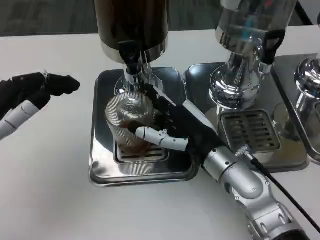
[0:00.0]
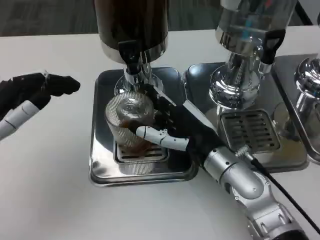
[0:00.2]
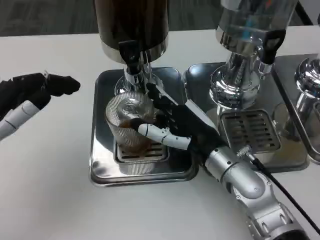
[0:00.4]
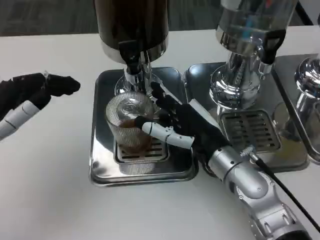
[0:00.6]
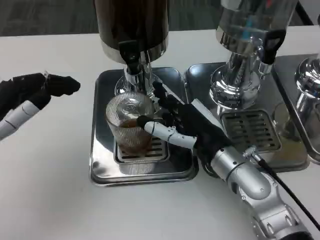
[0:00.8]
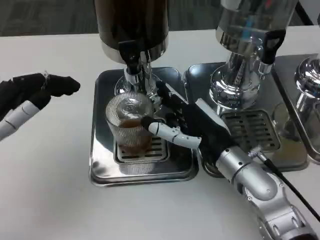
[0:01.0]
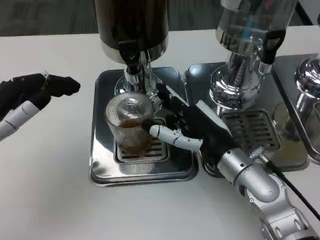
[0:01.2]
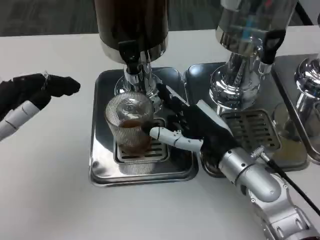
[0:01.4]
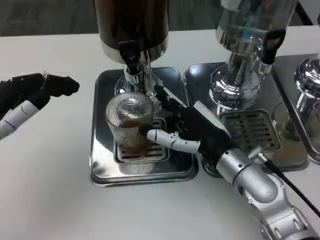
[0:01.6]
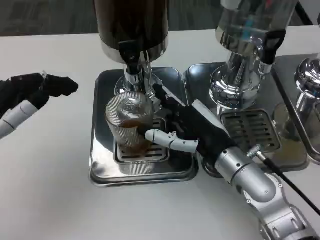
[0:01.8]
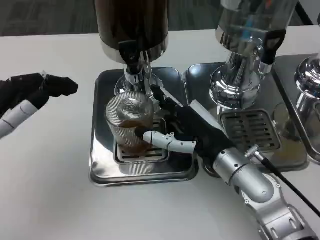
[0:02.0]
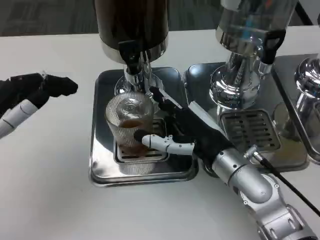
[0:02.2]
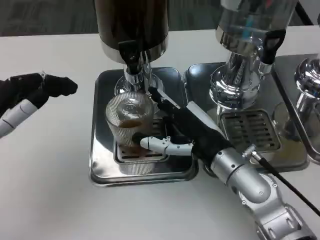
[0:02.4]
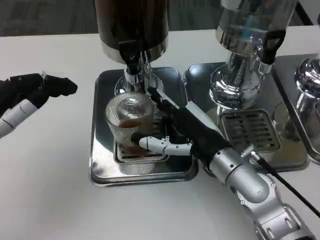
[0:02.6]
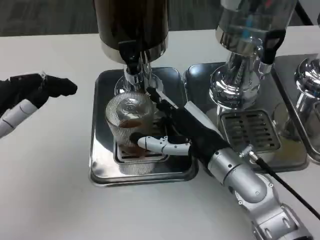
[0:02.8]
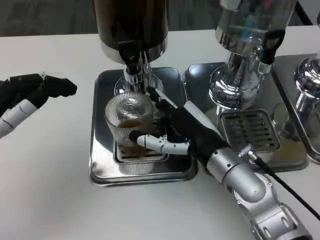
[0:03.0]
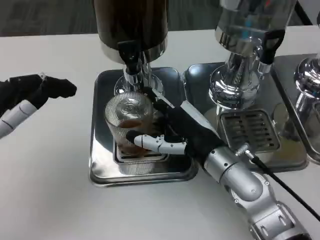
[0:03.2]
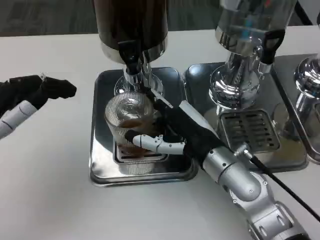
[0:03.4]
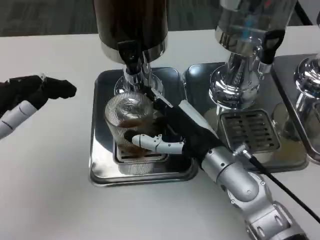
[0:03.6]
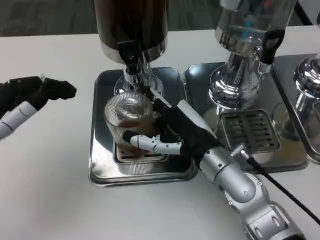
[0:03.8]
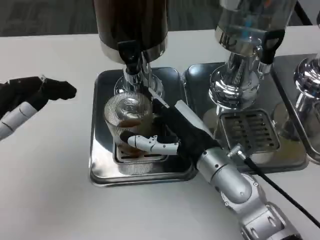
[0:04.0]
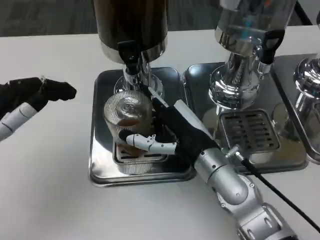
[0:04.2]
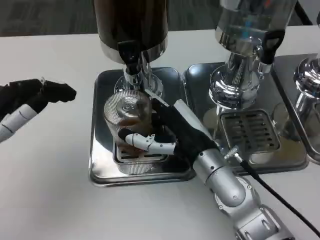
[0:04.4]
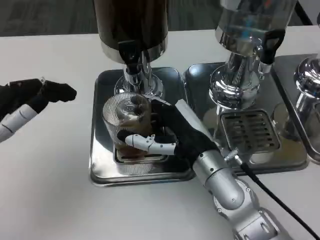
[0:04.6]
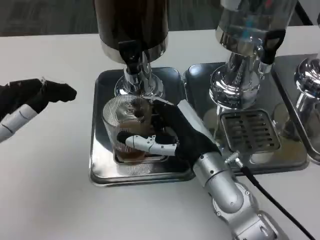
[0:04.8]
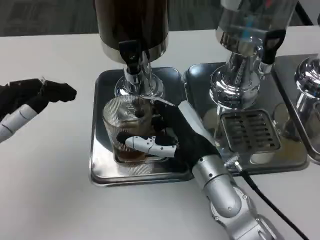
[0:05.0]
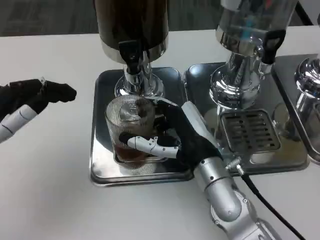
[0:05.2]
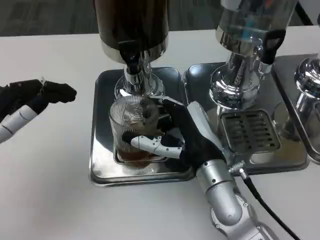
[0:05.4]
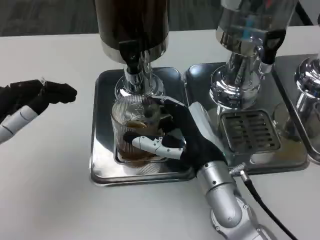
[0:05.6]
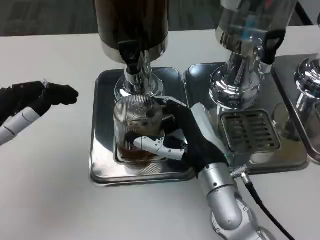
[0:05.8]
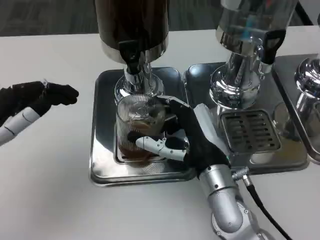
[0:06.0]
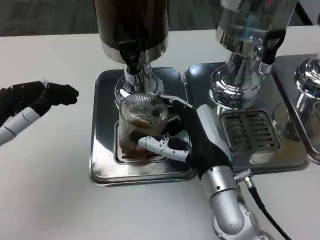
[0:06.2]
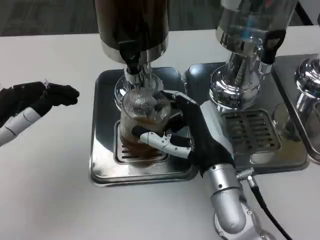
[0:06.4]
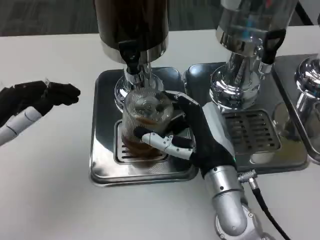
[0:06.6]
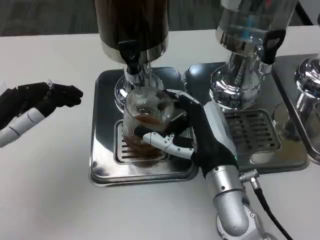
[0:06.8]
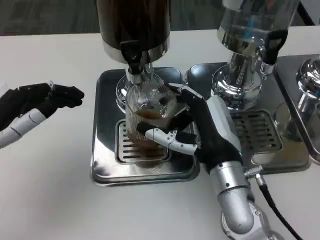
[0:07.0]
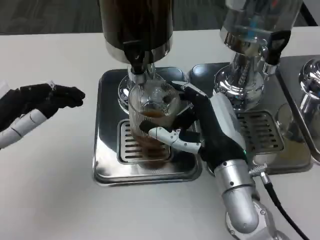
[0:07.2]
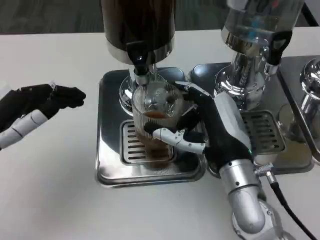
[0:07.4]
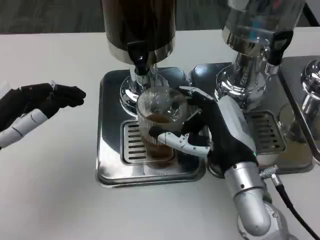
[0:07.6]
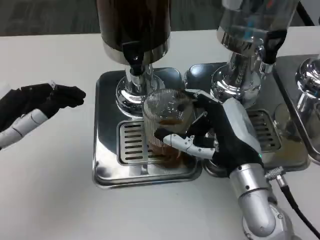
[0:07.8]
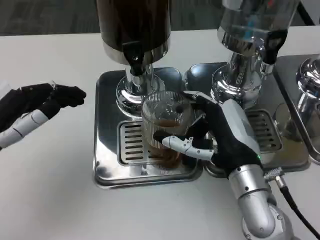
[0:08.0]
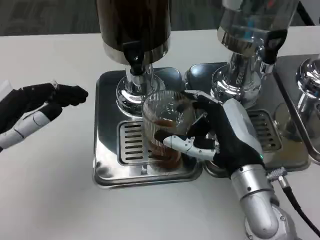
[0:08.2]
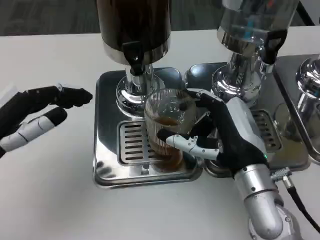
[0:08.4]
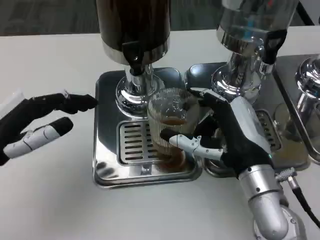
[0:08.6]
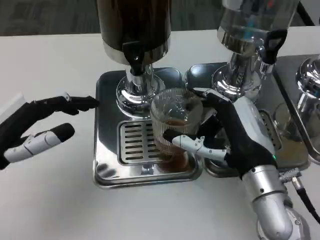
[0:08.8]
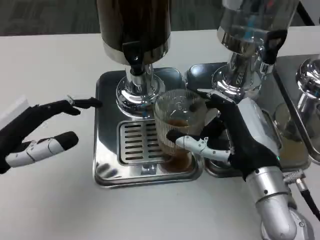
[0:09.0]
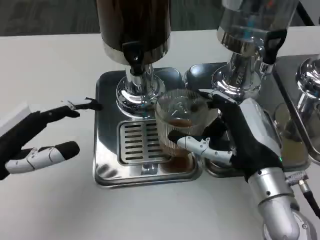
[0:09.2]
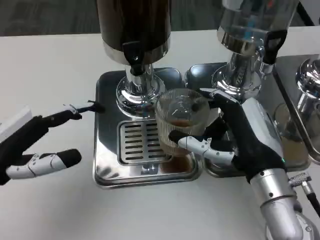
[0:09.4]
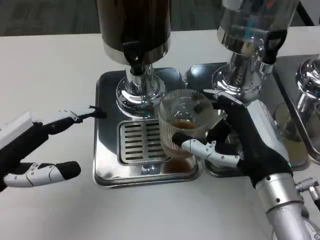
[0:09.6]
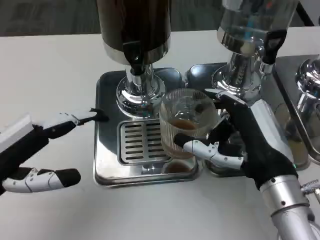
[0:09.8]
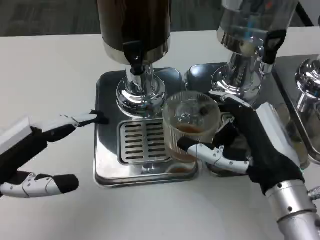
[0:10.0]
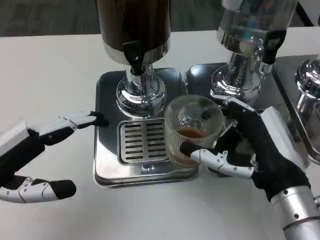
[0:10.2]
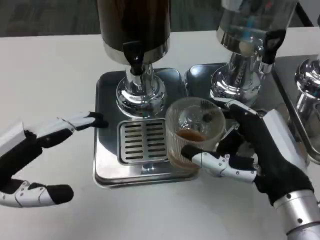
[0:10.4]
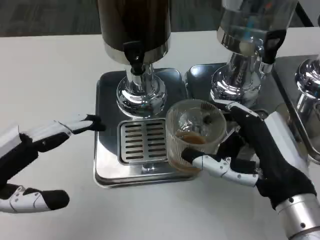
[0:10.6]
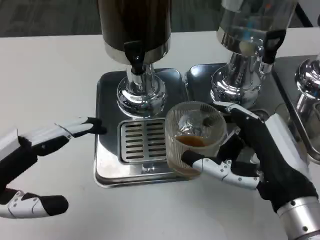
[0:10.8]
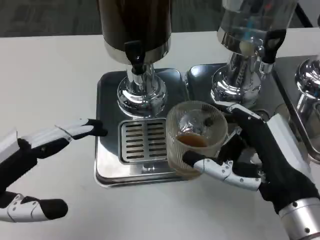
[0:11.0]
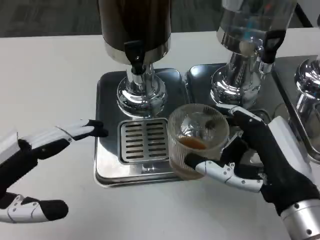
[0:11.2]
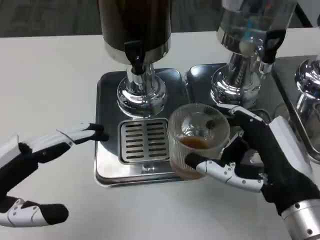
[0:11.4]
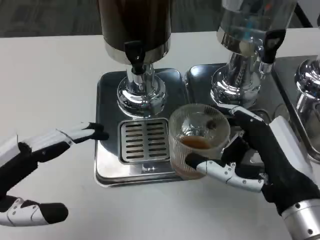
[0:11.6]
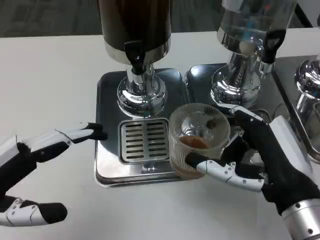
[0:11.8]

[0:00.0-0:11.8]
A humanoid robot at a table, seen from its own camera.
Task of the whole recording: Grasp the cup under the faucet to collect the drink, then remove the cup.
0:00.0 to 0:04.4: The hands stay close to where they were, moving slightly.
0:04.4 to 0:06.0: There are only small adjustments of the hands.
0:08.8 to 0:10.4: The right hand shifts about 5 cm backward.
0:10.4 to 0:11.8: The hands stay close to where they were, moving slightly.

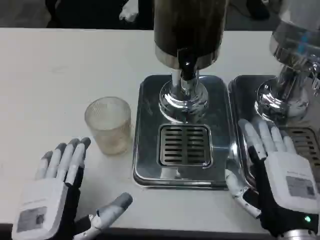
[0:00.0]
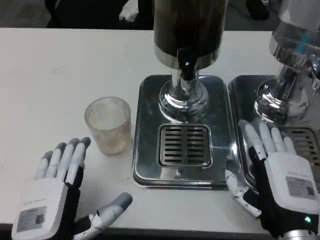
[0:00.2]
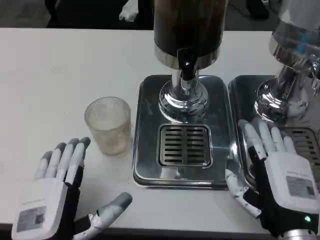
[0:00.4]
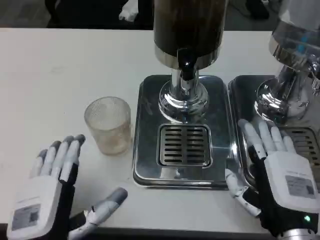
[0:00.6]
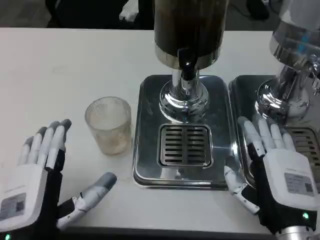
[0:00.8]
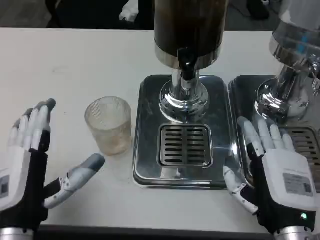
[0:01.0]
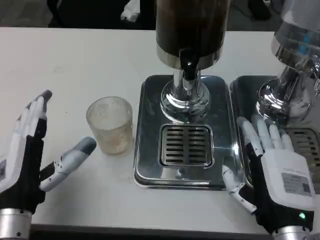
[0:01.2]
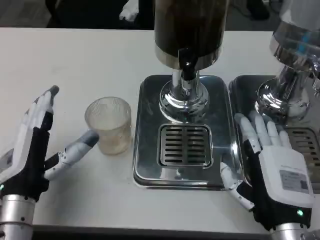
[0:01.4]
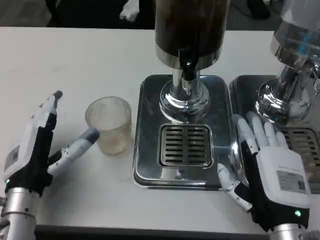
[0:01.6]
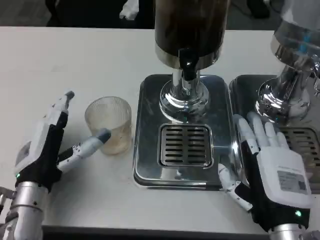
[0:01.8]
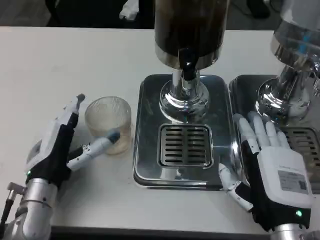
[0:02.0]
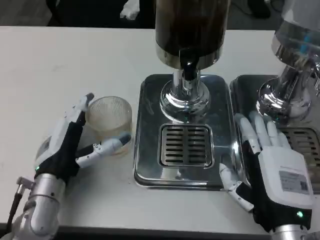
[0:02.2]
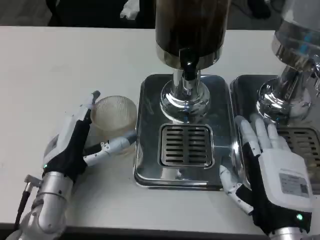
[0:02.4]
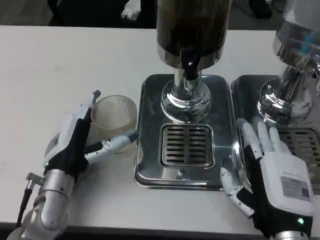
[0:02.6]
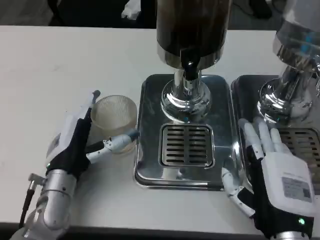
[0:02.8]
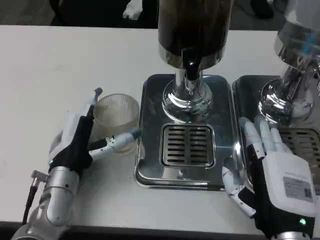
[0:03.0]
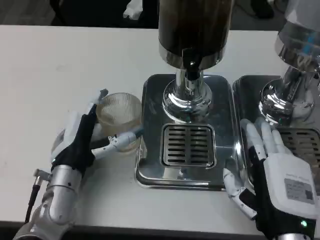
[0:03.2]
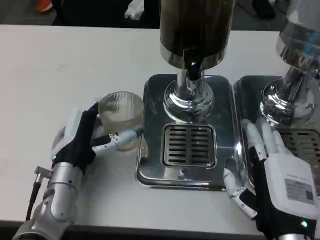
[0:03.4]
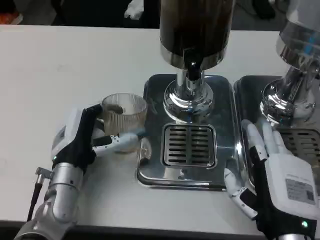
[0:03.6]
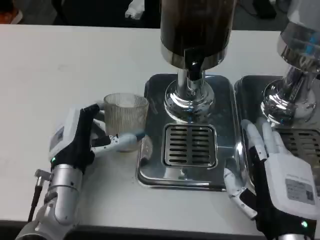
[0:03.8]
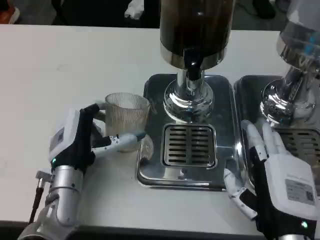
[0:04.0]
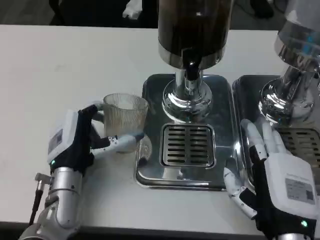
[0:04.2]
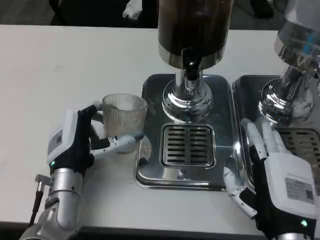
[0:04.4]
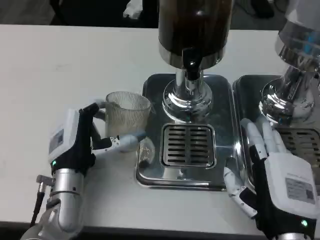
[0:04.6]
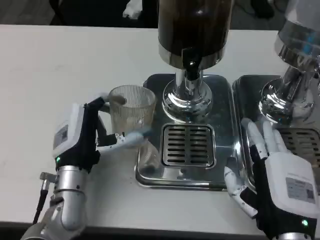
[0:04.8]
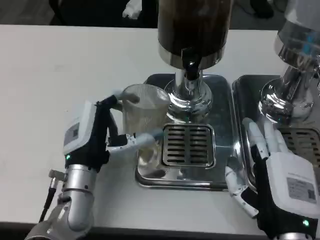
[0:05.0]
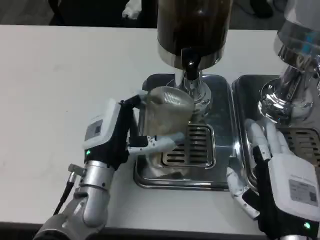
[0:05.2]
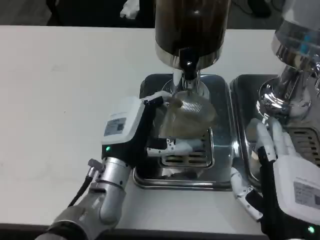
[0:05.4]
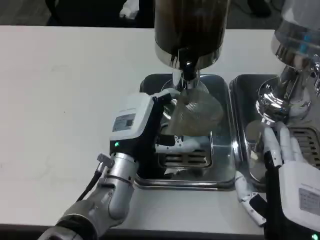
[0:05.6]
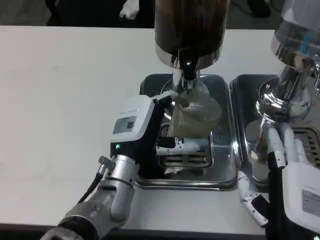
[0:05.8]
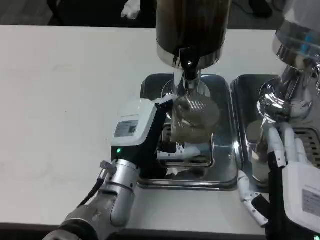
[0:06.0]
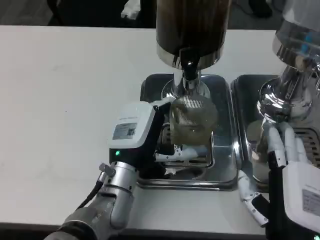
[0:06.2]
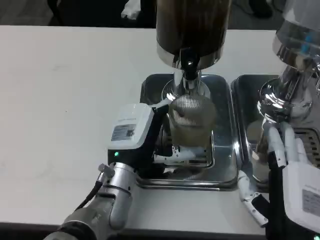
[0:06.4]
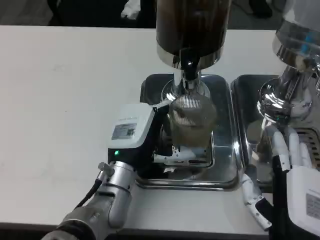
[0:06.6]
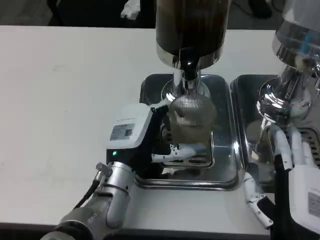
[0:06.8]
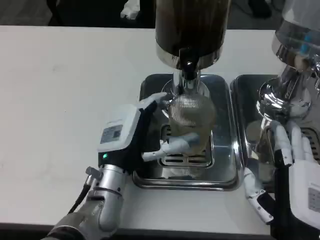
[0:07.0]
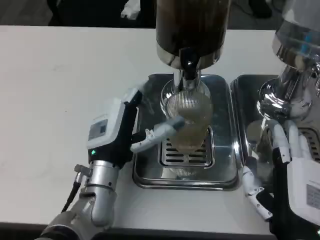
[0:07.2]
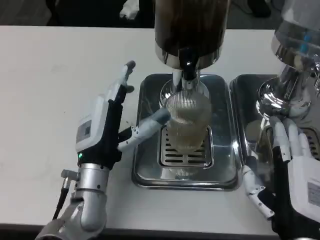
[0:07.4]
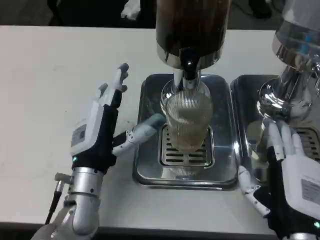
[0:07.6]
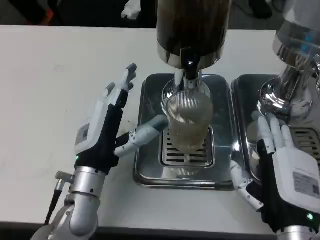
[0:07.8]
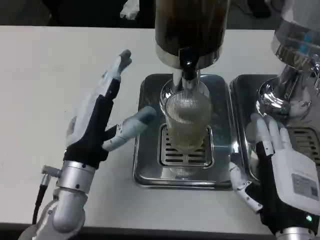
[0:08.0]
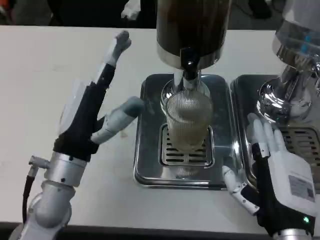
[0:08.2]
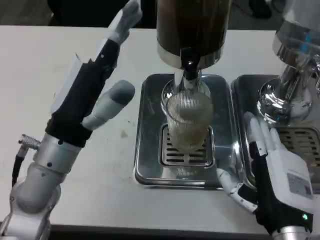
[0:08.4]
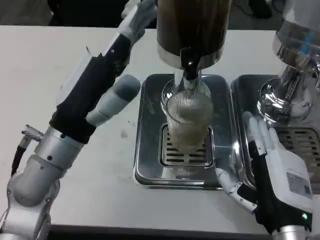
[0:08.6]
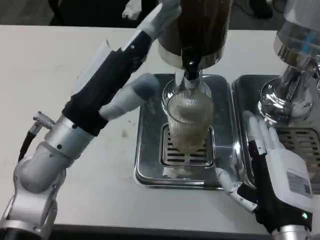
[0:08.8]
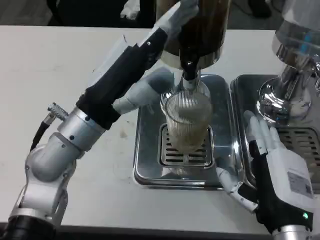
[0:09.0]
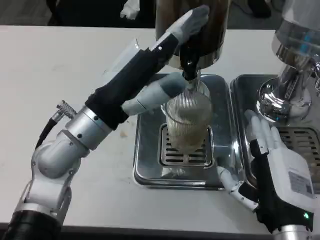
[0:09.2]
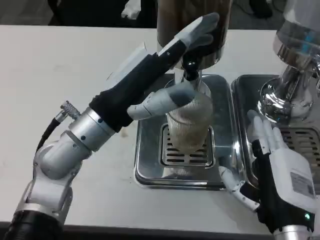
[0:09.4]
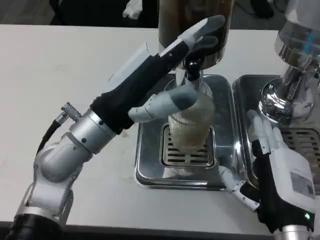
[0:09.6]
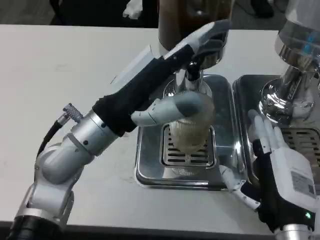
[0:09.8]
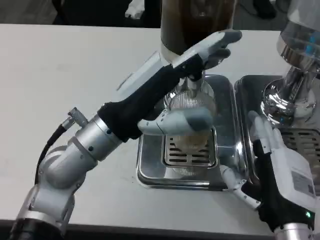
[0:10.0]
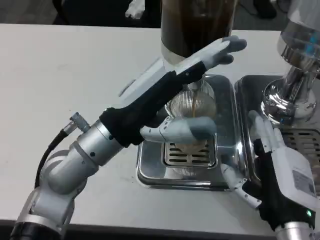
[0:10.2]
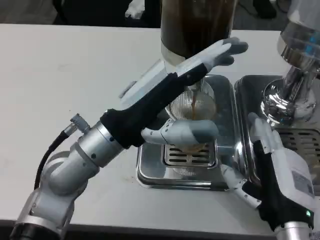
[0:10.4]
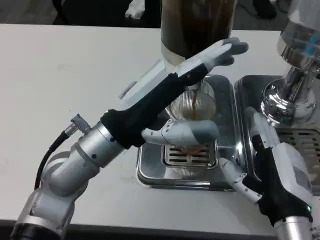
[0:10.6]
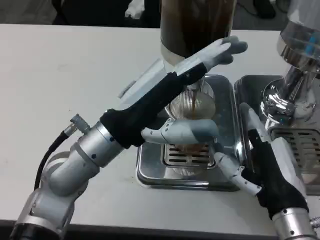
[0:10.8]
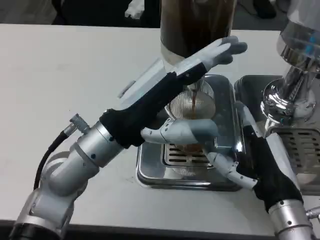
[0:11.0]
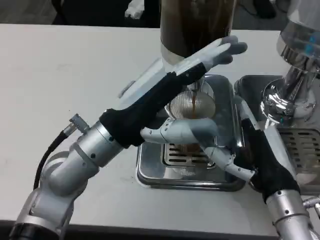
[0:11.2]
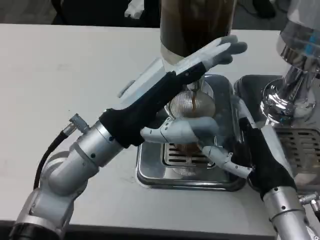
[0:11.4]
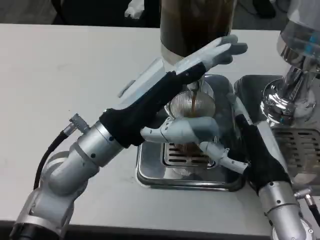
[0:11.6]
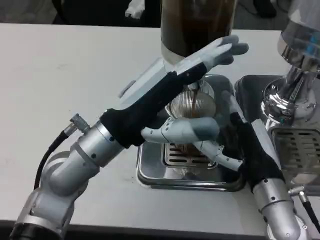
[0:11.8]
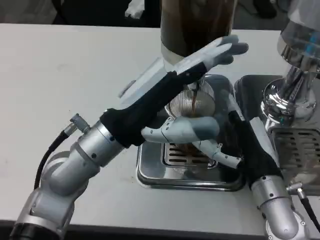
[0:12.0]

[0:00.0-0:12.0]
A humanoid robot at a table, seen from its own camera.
Task of the whole recording: Grasp the cup under the faucet to collect the drink, then remove the cup.
0:00.0 to 0:01.6: The left hand shifts approximately 10 cm forward.
0:01.6 to 0:03.0: The left hand moves about 5 cm.
0:03.0 to 0:04.4: The hands make only small movements.
0:04.4 to 0:06.0: The left hand travels to the right by roughly 5 cm.
0:07.6 to 0:09.0: The left hand shifts about 10 cm upward.
0:10.4 to 0:12.0: The right hand shifts some 5 cm forward.
